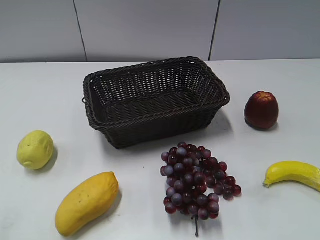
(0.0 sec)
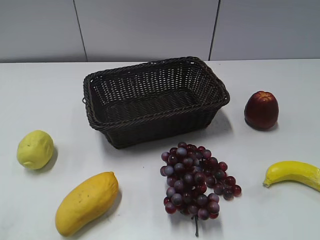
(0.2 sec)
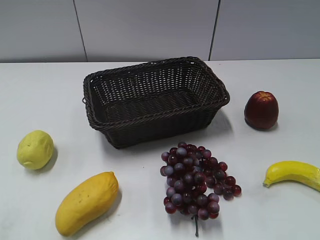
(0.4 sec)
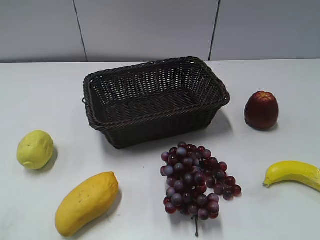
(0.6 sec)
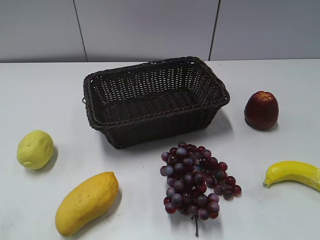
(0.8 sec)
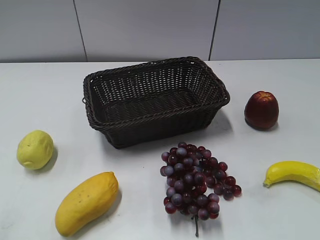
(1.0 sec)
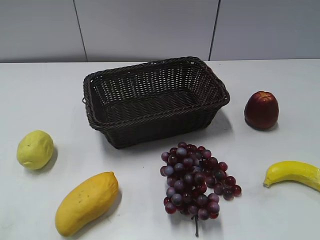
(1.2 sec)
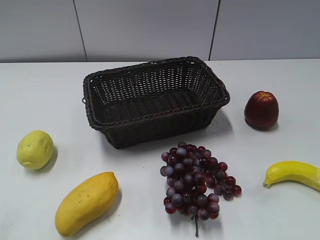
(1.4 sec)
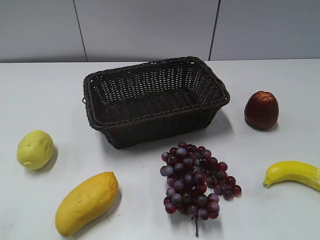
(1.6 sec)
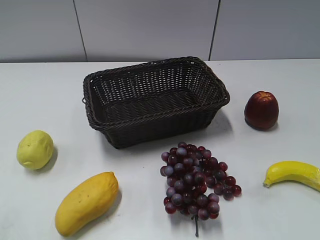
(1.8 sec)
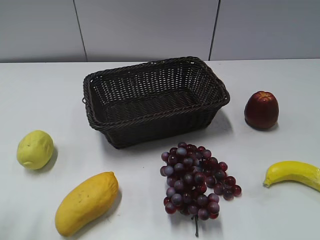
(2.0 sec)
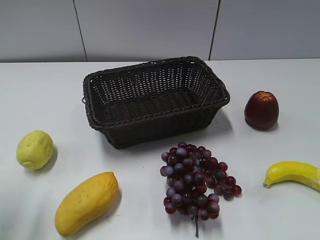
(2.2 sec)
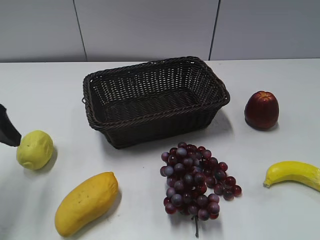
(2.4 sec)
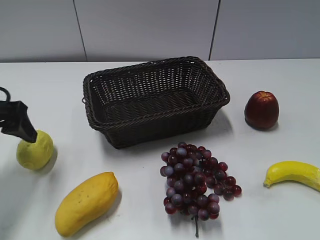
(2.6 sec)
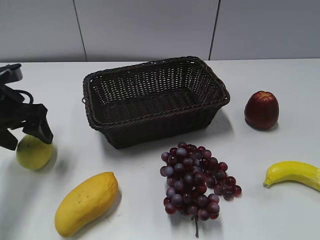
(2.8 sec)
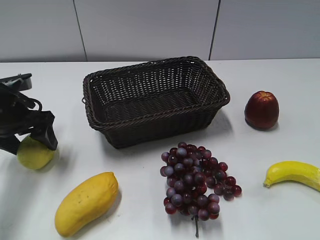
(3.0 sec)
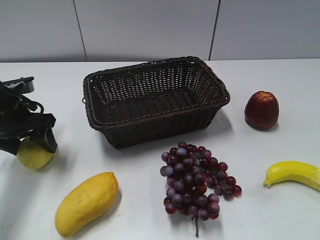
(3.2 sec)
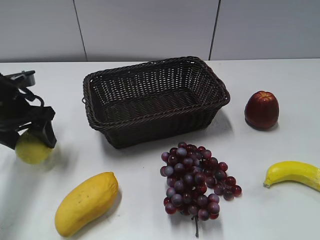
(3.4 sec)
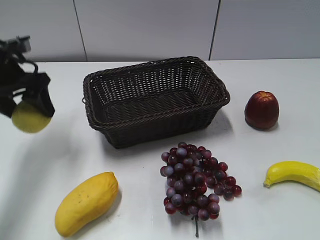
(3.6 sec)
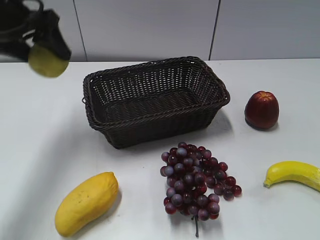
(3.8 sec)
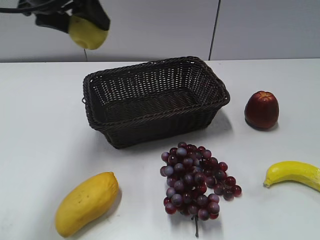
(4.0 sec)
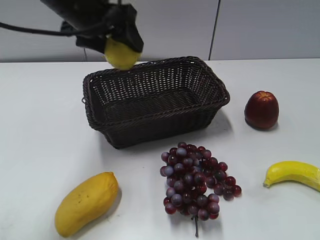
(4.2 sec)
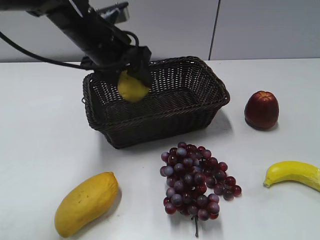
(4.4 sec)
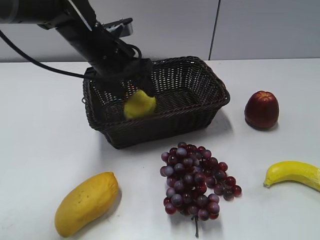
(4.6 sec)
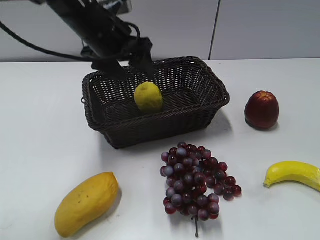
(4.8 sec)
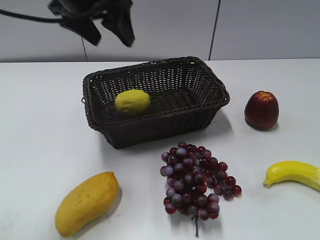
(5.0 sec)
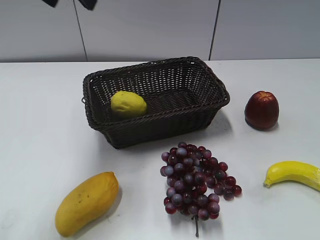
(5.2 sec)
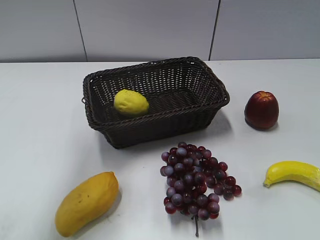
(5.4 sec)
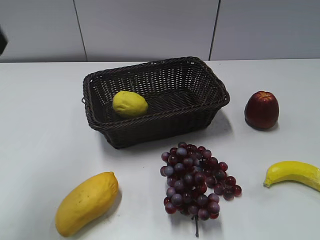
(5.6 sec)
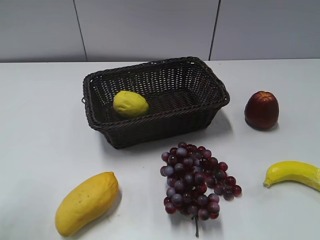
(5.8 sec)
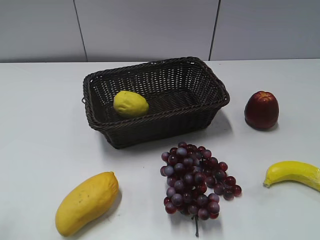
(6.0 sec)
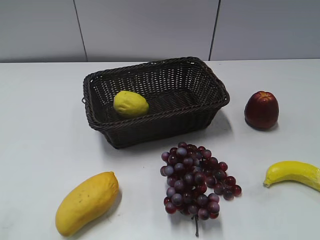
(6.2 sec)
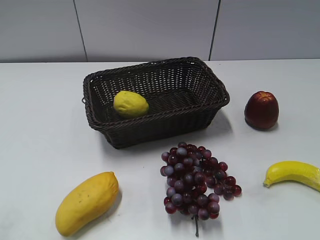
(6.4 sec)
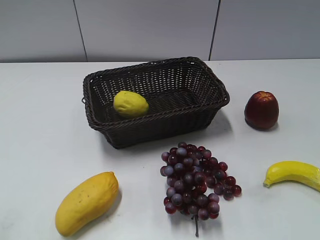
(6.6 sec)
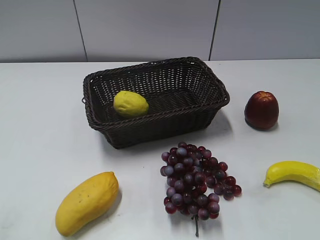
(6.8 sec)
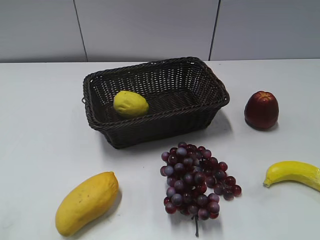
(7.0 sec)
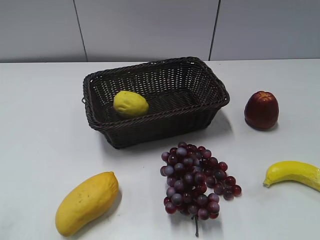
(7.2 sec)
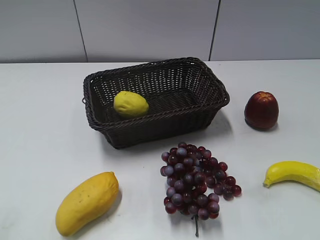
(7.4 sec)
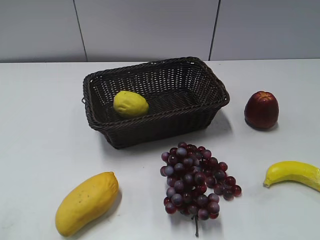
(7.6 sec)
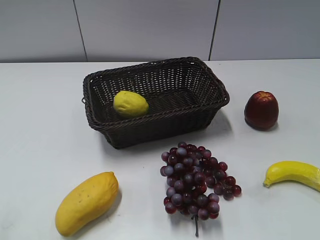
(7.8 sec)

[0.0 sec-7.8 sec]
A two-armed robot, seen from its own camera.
Step, 2.4 sec to 3.2 sec: Grasp the lemon with left gripper.
Step, 3.4 sec to 4.6 sec: Place the lemon in the basket with left gripper.
1.6 sec to 3.2 sec: The left gripper moves forward and downward, roughly 35 cm.
3.2 sec to 4.6 sec: The left gripper shifts roughly 20 cm to the right and upward.
4.6 sec to 6.2 sec: The left gripper heads backward and to the left, covering some 40 cm.

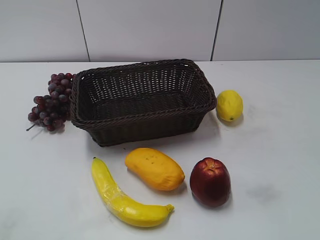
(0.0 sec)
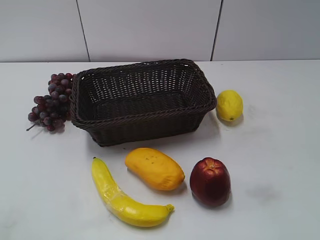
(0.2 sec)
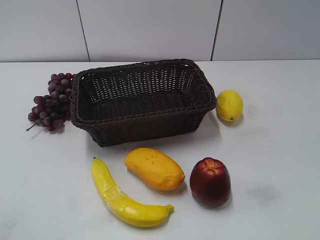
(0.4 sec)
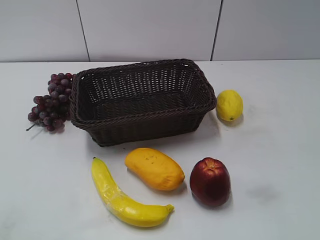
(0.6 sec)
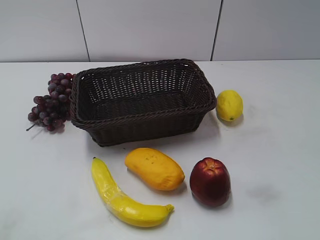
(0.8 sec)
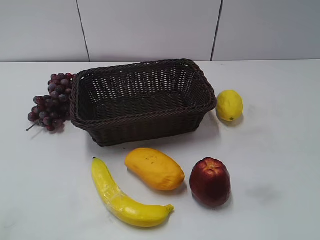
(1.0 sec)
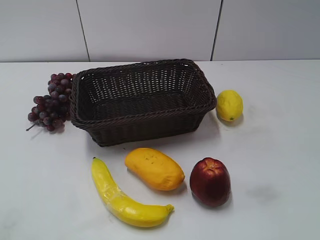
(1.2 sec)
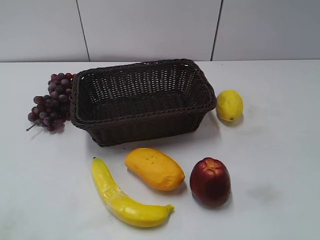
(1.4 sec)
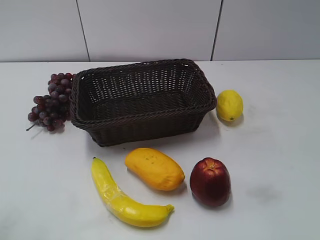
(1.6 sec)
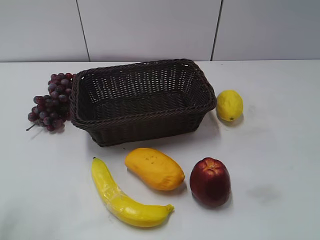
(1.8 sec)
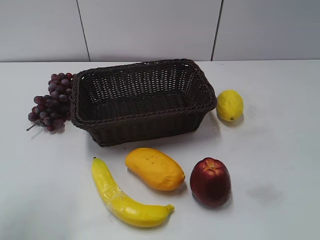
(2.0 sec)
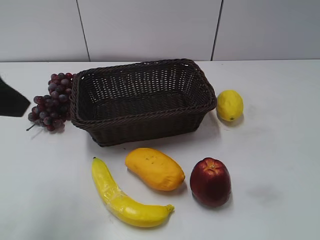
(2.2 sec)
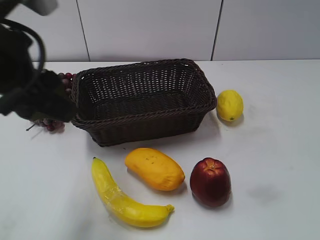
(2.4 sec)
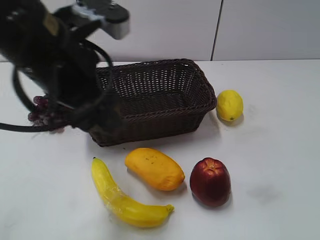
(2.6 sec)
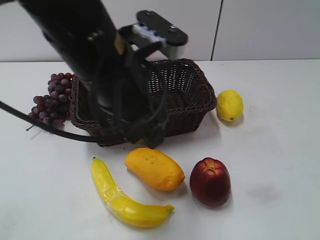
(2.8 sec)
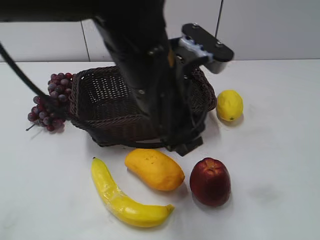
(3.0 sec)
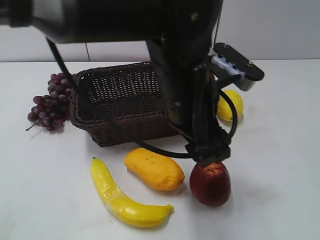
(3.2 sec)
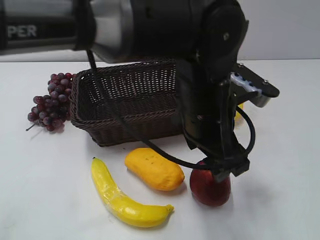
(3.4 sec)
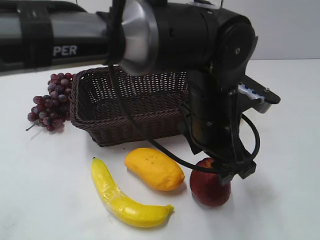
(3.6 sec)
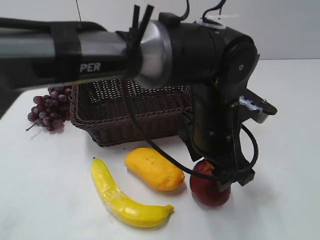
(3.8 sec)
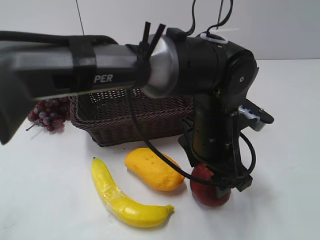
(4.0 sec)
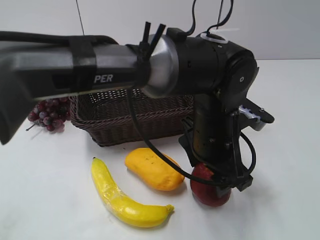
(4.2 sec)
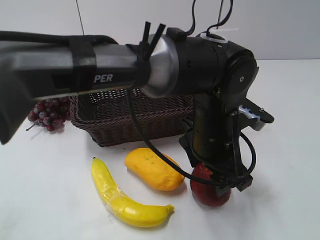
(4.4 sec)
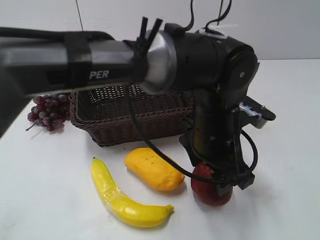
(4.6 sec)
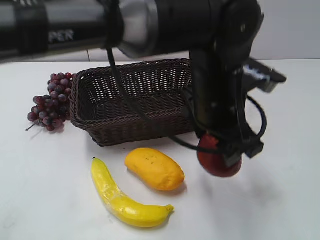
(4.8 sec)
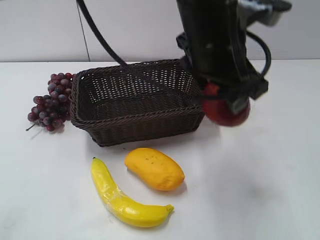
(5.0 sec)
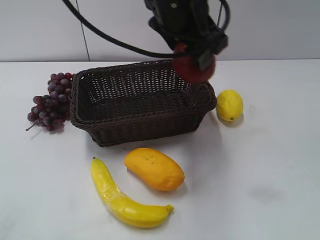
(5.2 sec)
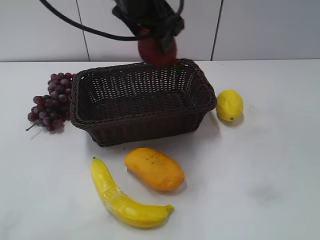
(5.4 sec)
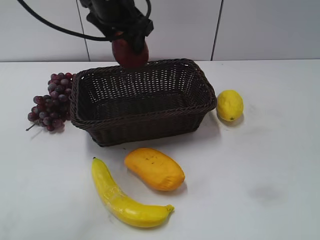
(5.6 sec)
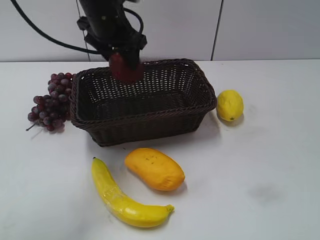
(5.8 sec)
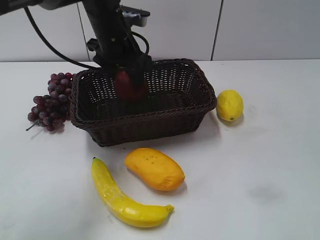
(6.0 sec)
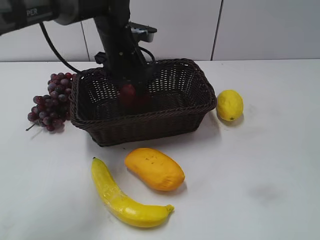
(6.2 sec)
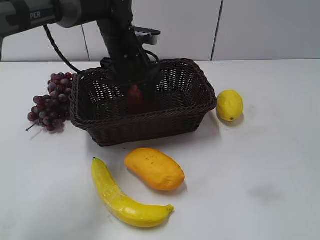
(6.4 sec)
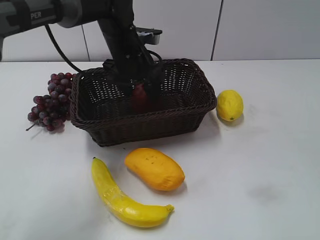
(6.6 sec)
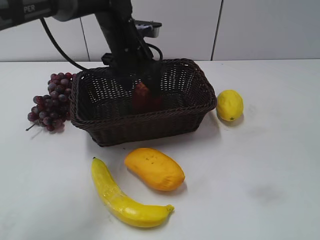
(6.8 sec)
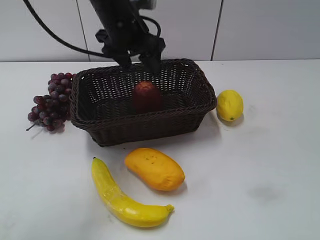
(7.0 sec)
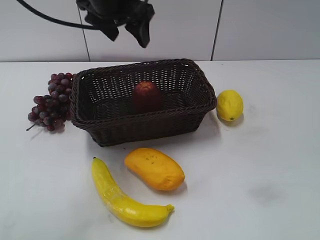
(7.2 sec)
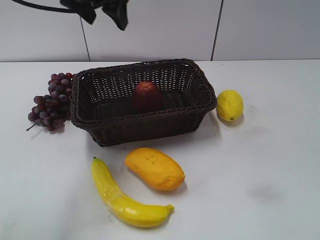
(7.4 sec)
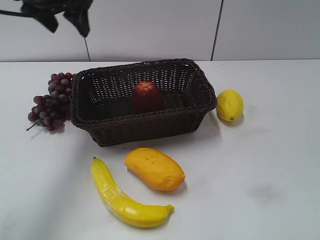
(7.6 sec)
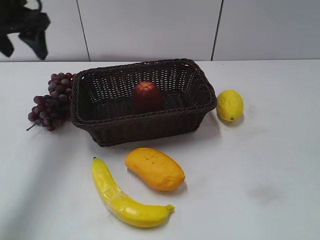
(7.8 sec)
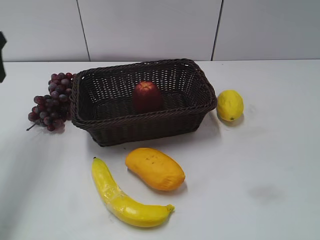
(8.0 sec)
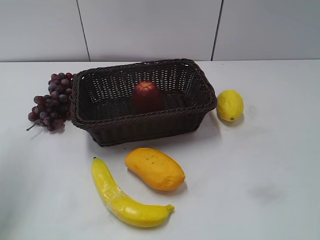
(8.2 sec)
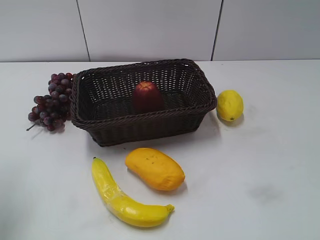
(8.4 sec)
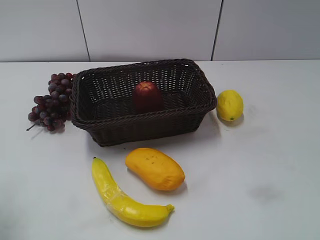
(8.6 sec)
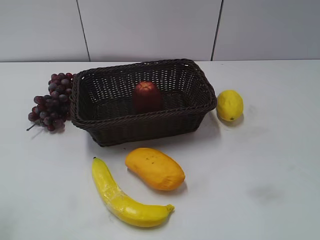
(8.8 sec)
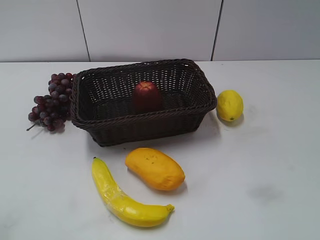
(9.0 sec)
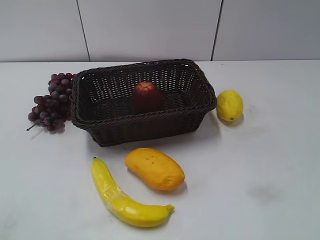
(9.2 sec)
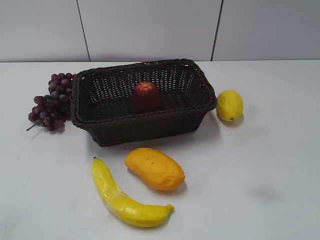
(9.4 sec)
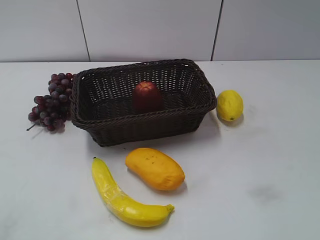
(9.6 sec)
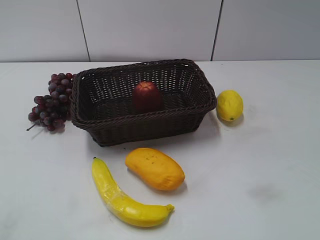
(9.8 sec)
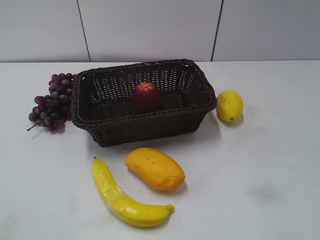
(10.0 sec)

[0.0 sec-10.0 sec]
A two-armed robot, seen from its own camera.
Step, 2.2 sec to 4.2 sec: Grasp the apple with left gripper.
Step, 4.4 sec to 6.4 sec: Place the apple in the basket with left gripper.
1.4 sec to 2.8 sec: The left gripper heads to the right and forward, covering some 30 cm.
2.8 sec to 4.2 sec: The left gripper heads to the right and downward, covering approximately 15 cm.
4.2 sec to 5.8 sec: The left gripper moves forward, to the left and upward, approximately 25 cm.
5.8 sec to 7.2 sec: The left gripper travels upward by roughly 5 cm, and opens up.
7.2 sec to 8.6 sec: The left gripper is displaced to the left and backward by about 35 cm.
